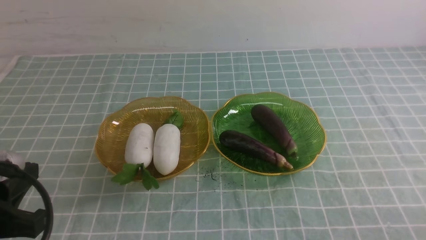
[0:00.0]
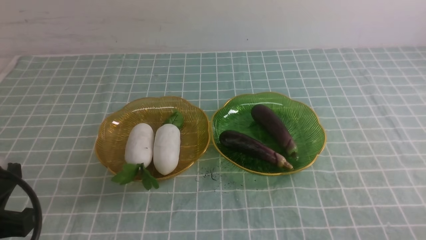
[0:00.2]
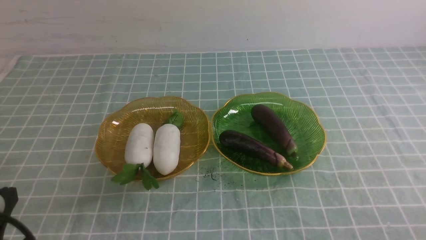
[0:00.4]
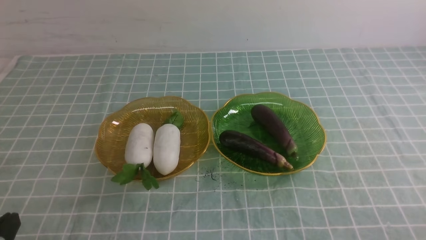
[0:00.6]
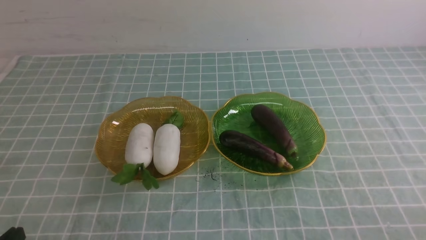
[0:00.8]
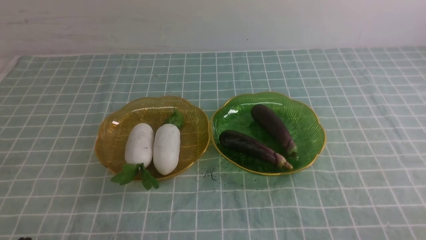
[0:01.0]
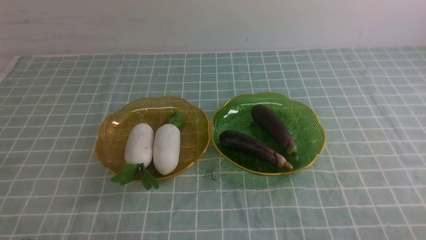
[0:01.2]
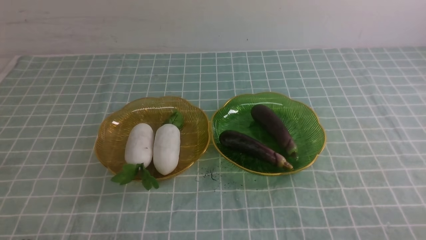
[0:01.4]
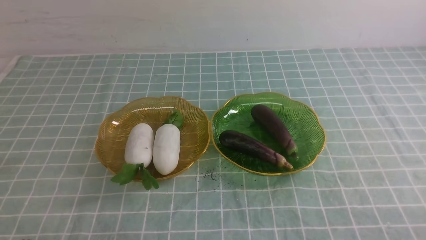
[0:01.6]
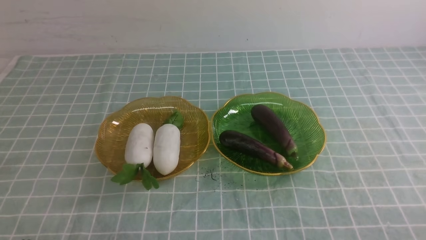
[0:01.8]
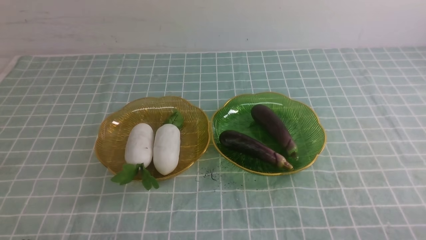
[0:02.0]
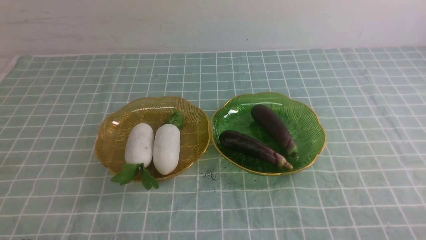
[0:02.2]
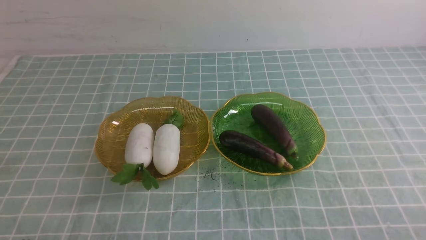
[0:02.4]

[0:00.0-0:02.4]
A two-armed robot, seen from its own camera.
0:00.0 to 0:01.2: The left gripper travels downward by approximately 10 cm.
0:01.2 to 0:02.4: Both grippers stay put.

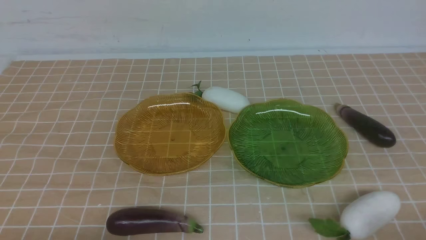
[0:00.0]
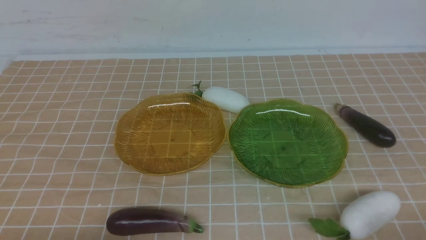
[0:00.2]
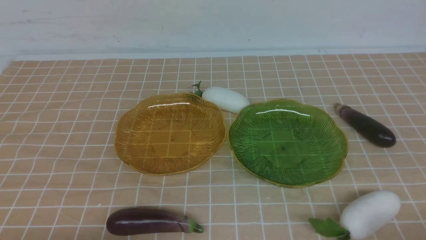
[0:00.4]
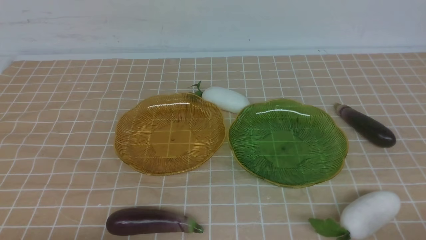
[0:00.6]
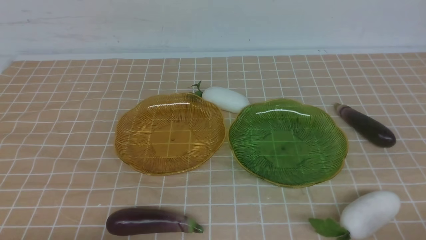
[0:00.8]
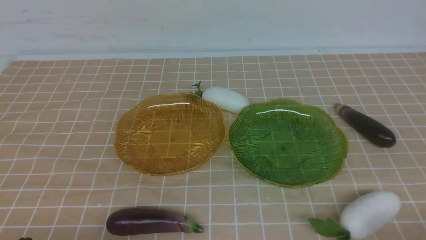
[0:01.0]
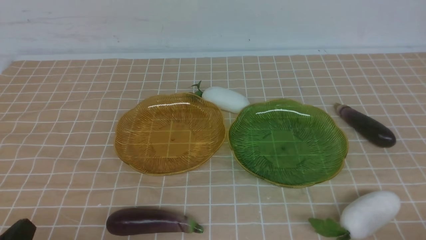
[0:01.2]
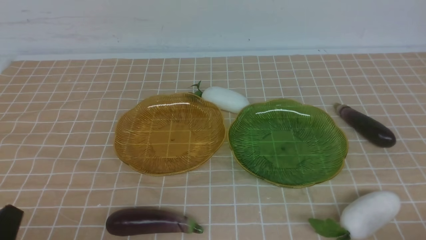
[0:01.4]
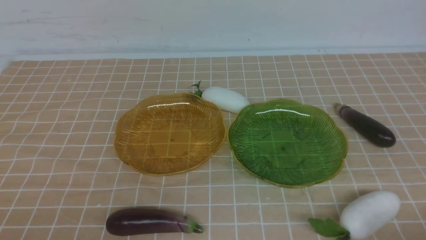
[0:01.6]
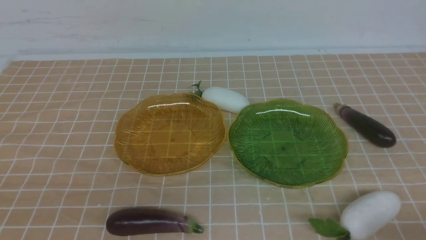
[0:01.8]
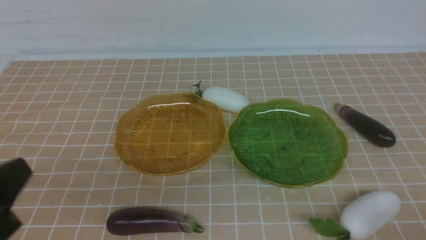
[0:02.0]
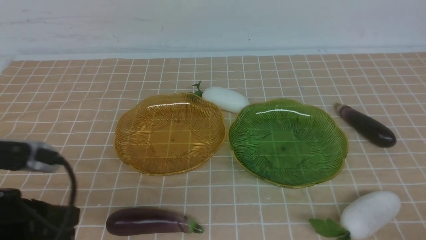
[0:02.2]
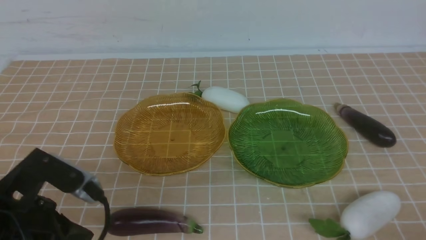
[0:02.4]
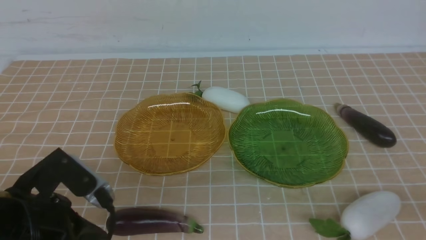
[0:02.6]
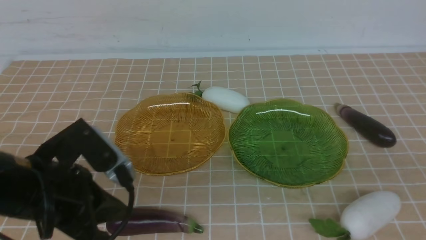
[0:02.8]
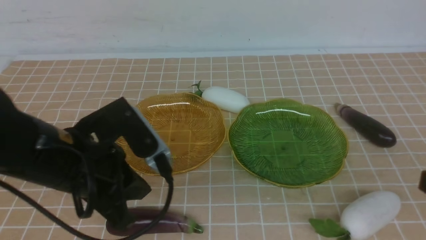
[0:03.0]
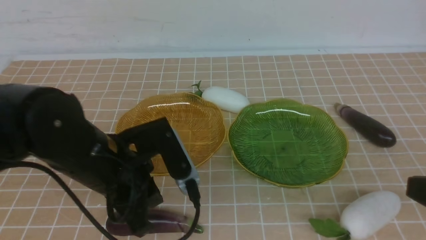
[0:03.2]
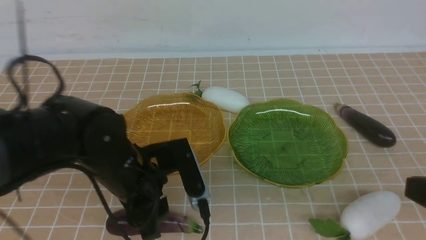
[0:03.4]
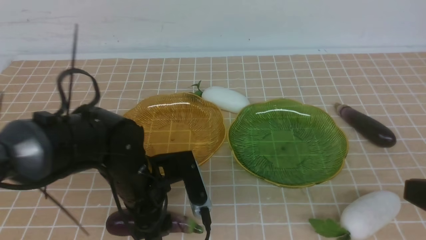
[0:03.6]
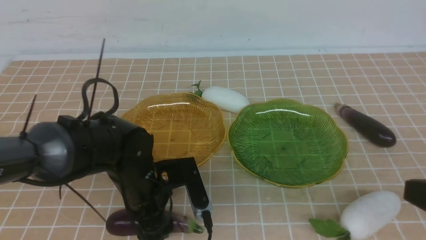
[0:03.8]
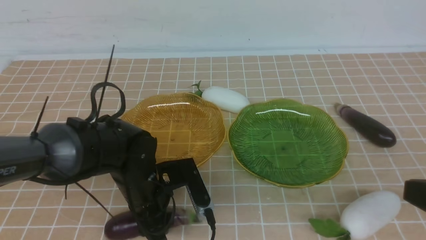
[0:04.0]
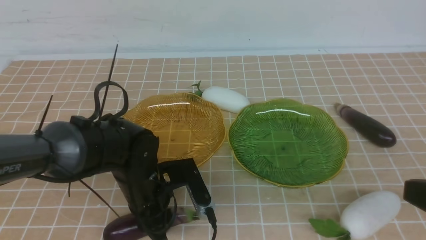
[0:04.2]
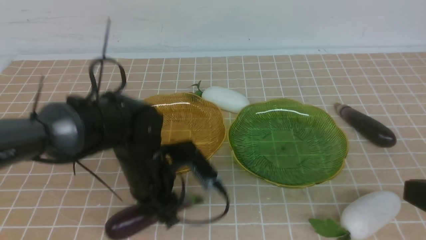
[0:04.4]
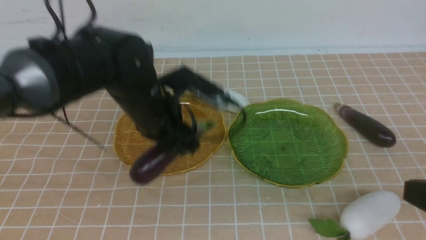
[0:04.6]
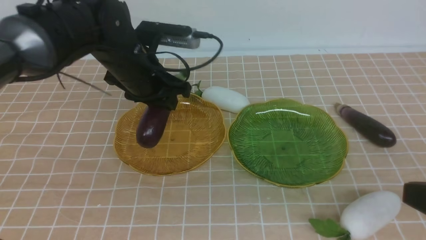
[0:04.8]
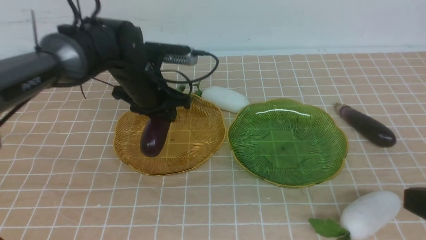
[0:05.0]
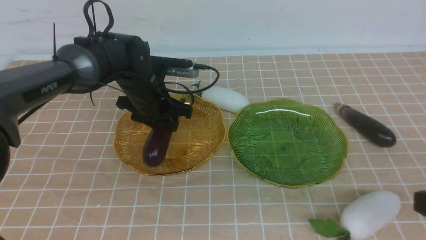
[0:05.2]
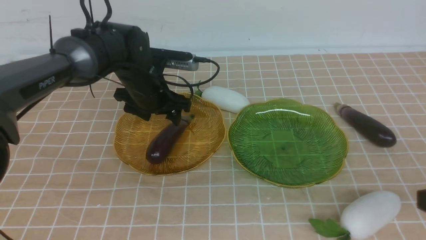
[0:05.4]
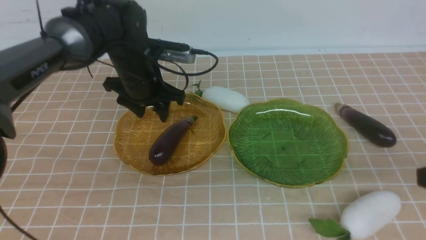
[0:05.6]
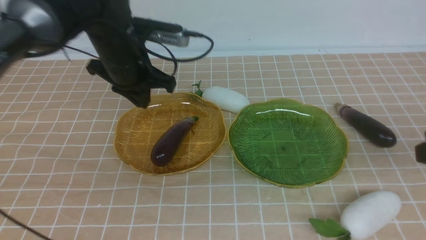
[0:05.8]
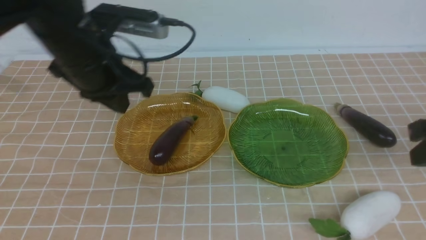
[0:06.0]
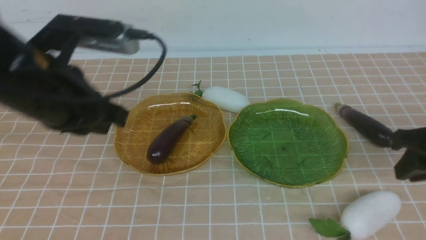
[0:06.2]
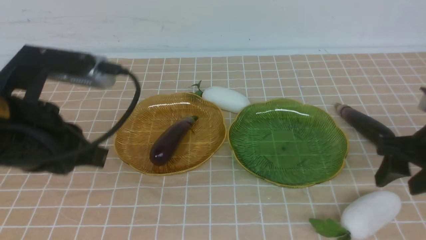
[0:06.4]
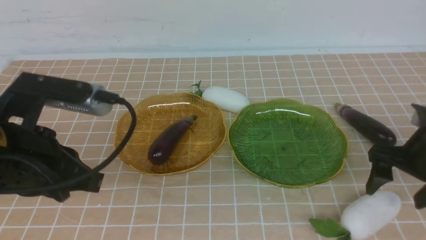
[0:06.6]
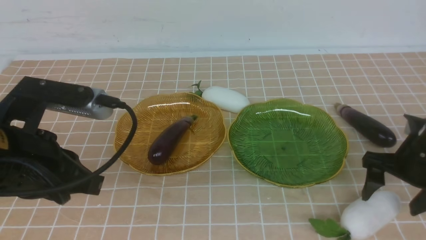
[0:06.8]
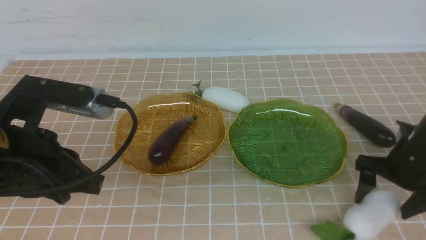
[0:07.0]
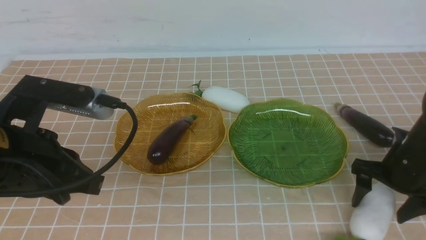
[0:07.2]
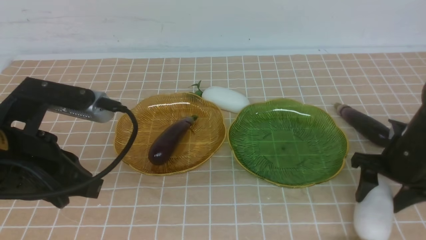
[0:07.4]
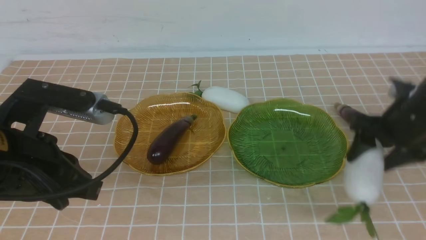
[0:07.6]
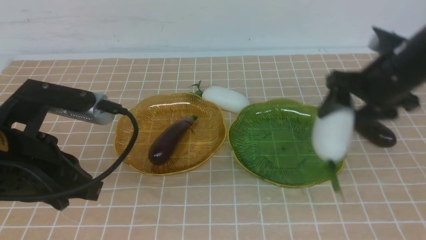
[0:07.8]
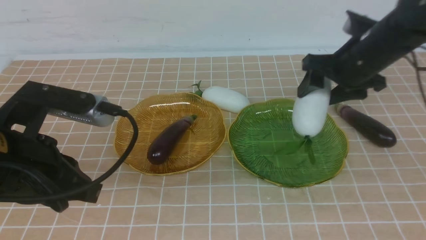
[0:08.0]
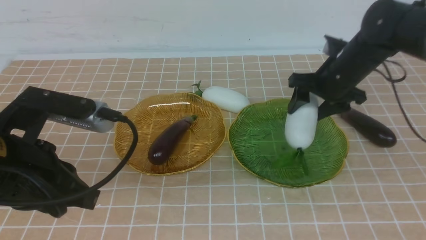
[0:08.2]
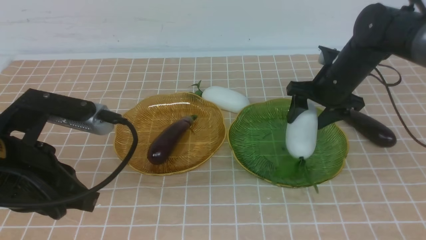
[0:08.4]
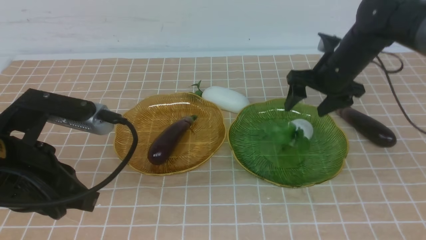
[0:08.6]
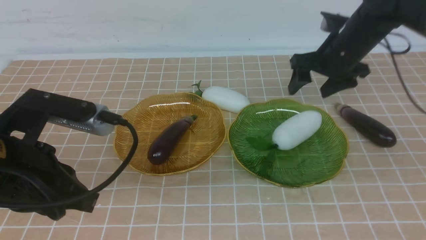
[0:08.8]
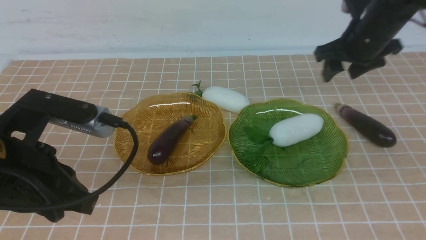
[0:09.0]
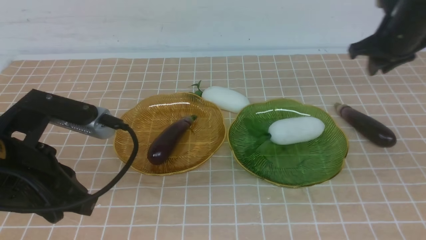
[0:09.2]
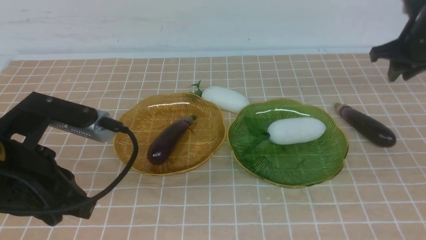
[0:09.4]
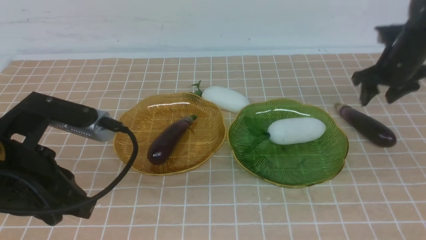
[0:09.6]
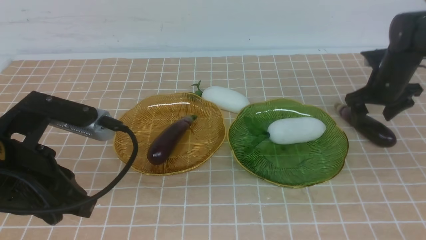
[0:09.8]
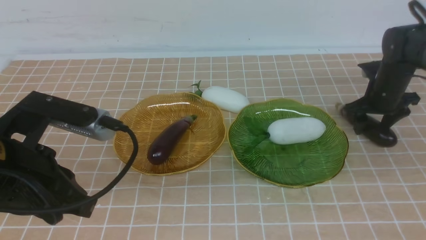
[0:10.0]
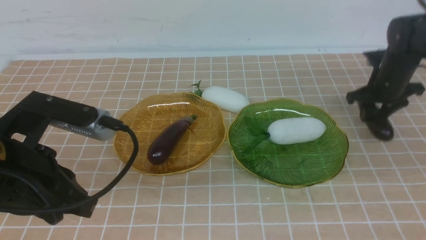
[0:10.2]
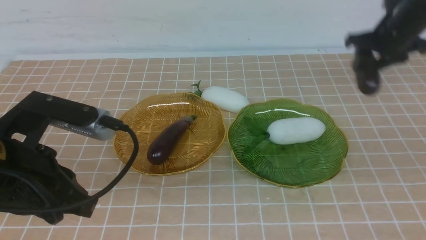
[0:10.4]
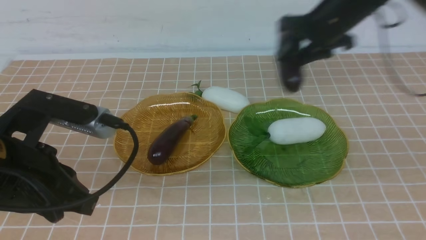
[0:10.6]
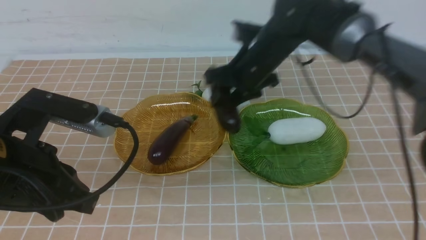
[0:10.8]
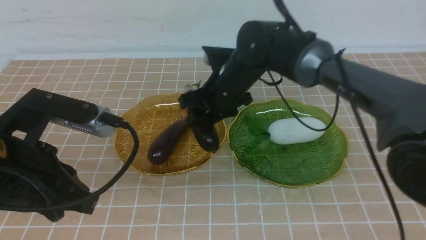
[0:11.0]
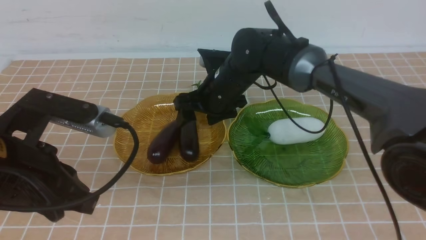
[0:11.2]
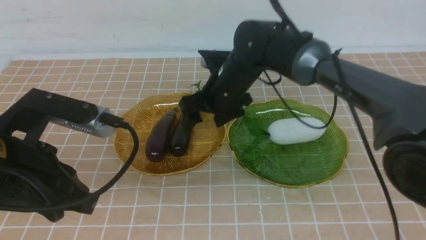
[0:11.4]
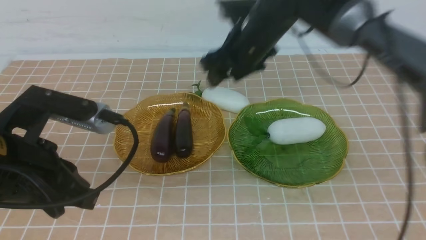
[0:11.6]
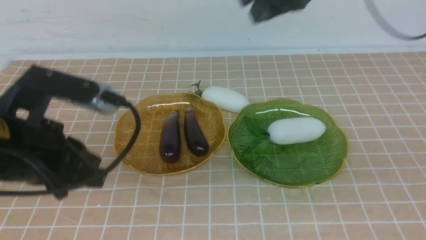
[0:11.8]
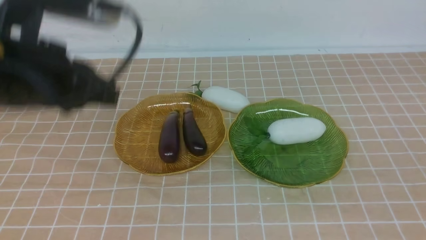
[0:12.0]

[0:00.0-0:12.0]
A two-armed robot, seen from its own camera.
Step, 0:00.0 to 0:05.4: use the left arm to grab an eggplant and put it into the left plate.
Step, 0:05.6 to 0:08.6: use the right arm to grab a radish and put it into the right plate.
Step, 0:09.0 to 0:11.4: use the right arm to grab an eggplant and put it into the left plate.
0:01.6 to 0:03.0: The right gripper moves upward, about 15 cm, while the left gripper goes approximately 20 cm forward and to the right.
0:03.0 to 0:04.4: The left gripper travels forward by some 10 cm, and opens, then closes again.
0:04.4 to 0:06.0: The left gripper goes roughly 10 cm upward and to the left, and closes up; the right gripper moves forward, some 10 cm.
0:06.0 to 0:07.6: The right gripper shifts roughly 15 cm forward and downward, and opens up. Meanwhile the left gripper moves backward, some 15 cm.
0:07.6 to 0:09.0: The right gripper moves forward, some 10 cm.
0:09.0 to 0:10.4: The right gripper moves to the left, approximately 5 cm.
0:10.4 to 0:12.0: The right gripper moves backward and upward, about 30 cm, and closes; the left gripper travels forward, upward and to the right by some 15 cm.

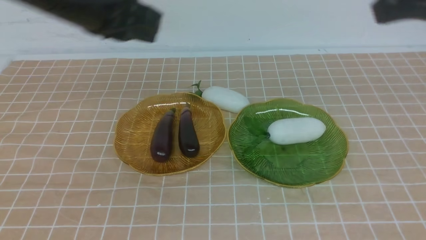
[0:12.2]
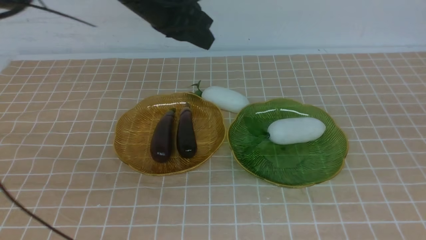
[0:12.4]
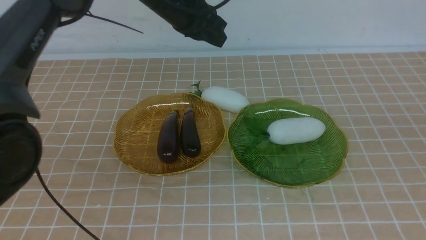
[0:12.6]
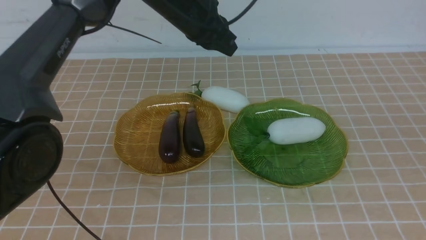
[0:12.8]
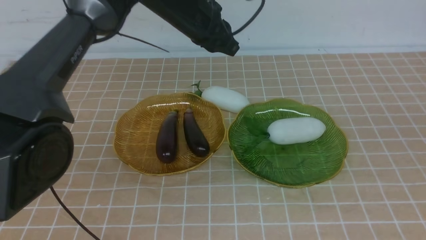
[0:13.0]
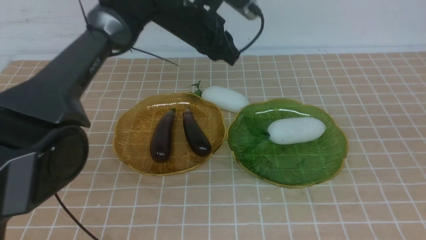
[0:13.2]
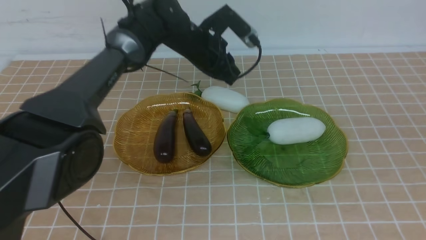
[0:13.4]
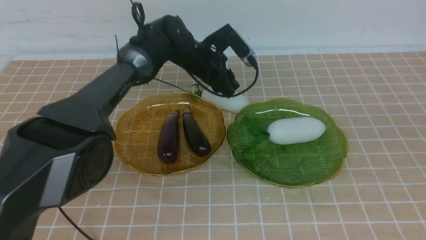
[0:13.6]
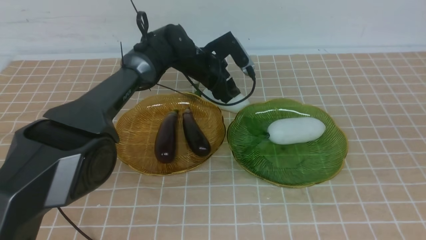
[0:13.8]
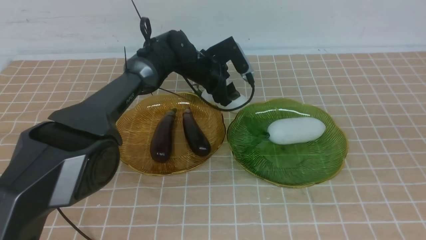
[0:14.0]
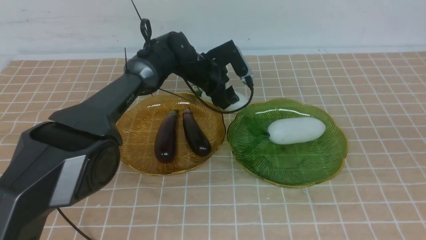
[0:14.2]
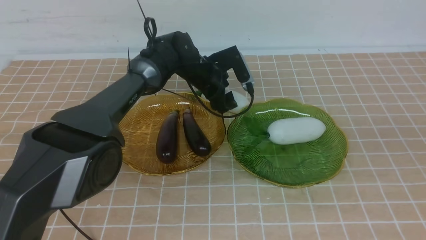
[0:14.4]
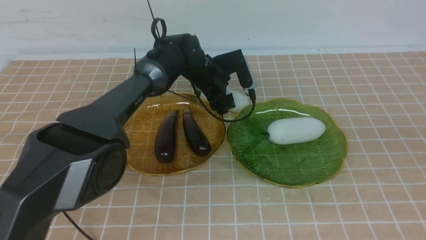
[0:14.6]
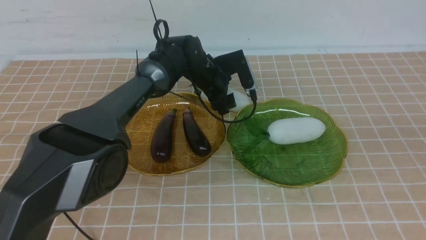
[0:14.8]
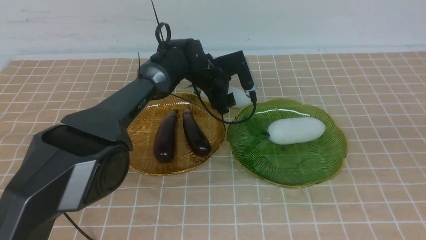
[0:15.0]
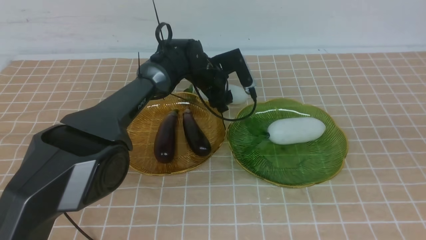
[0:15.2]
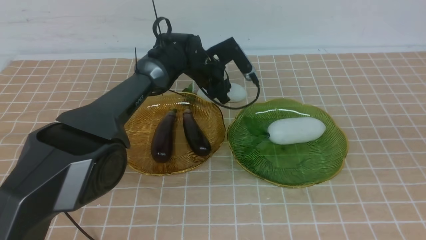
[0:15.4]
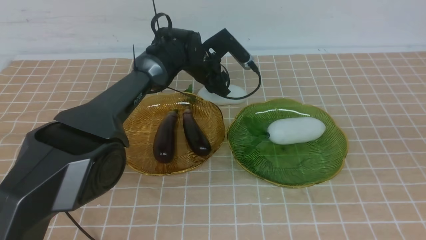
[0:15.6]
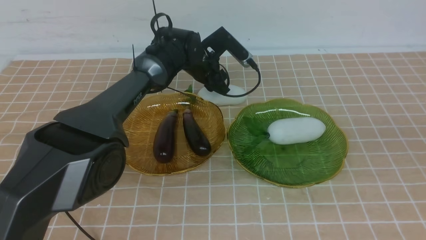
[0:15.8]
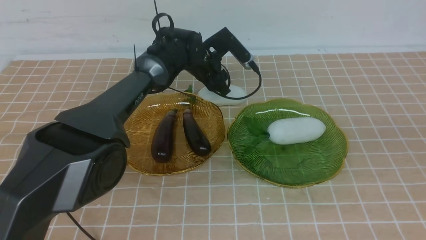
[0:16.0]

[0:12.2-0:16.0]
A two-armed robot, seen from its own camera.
0:12.2 to 0:13.4: The left gripper heads downward and forward, covering approximately 20 cm, while the right gripper moves backward, some 5 cm.
0:13.4 to 0:14.8: The left gripper shifts about 10 cm downward, and opens up.
